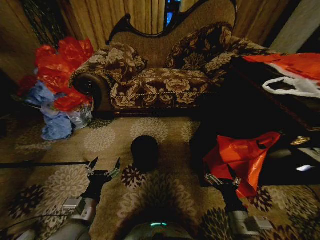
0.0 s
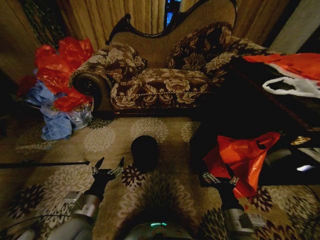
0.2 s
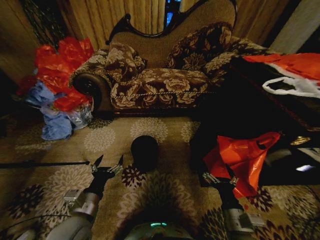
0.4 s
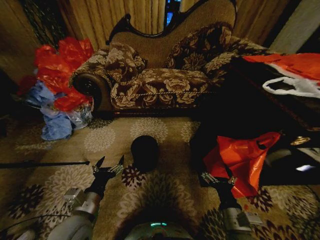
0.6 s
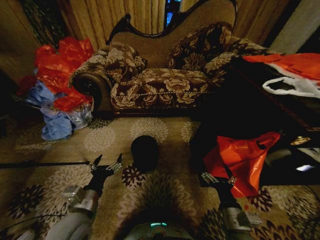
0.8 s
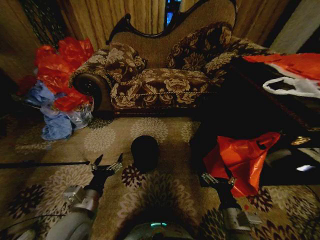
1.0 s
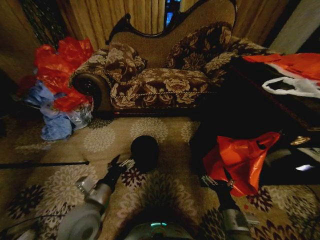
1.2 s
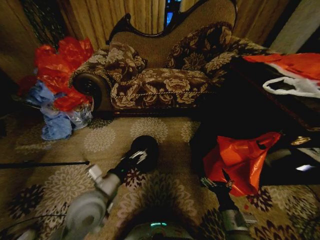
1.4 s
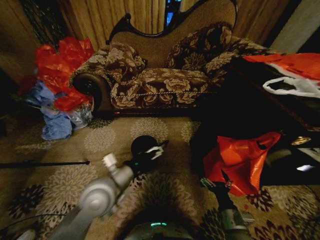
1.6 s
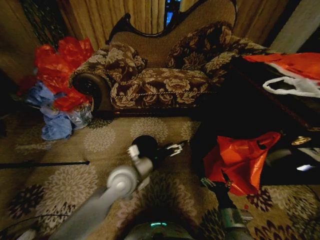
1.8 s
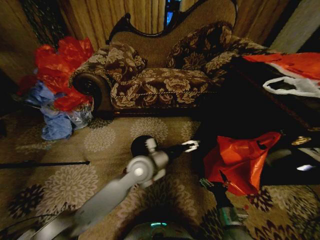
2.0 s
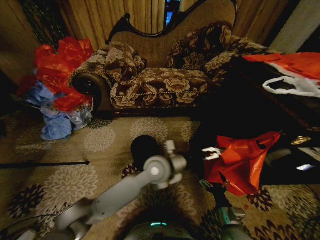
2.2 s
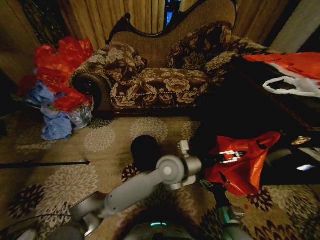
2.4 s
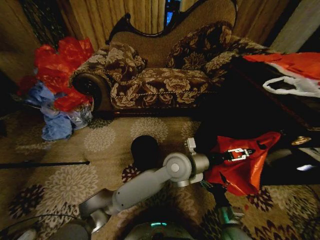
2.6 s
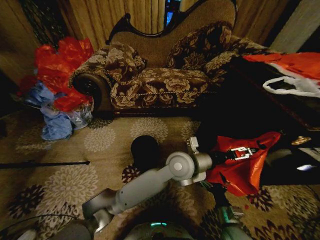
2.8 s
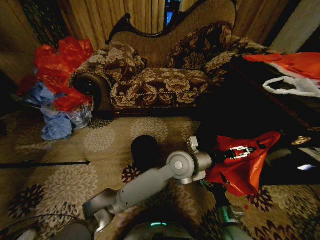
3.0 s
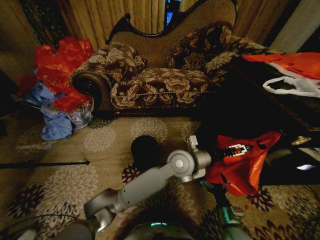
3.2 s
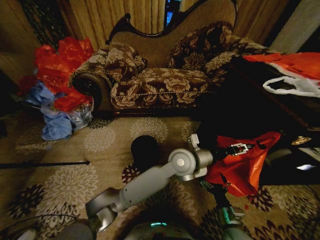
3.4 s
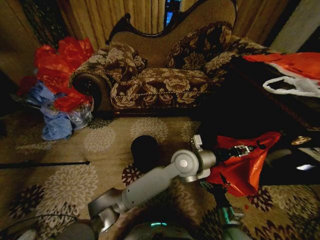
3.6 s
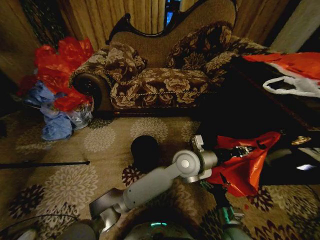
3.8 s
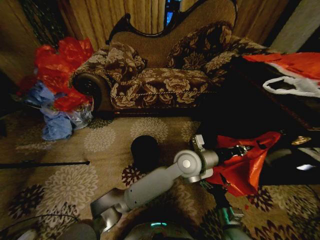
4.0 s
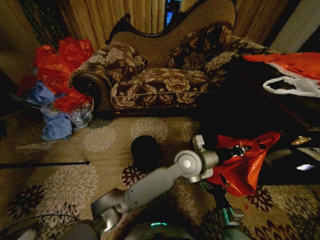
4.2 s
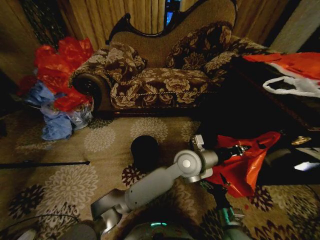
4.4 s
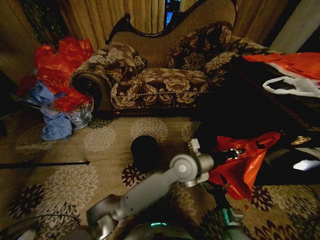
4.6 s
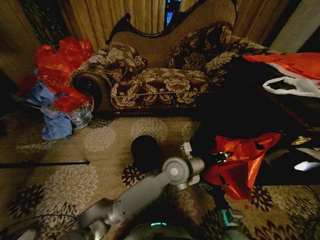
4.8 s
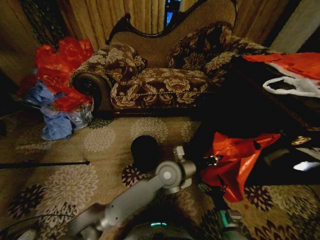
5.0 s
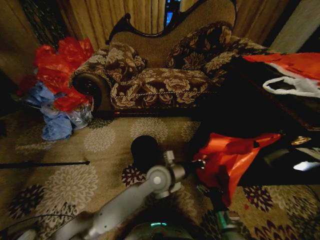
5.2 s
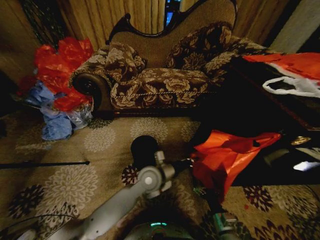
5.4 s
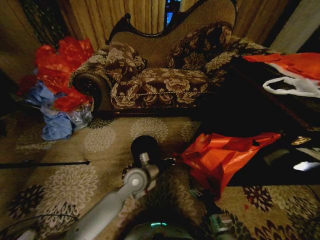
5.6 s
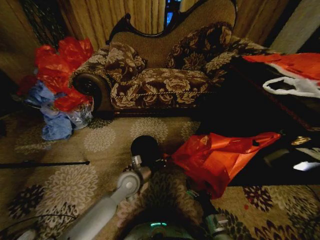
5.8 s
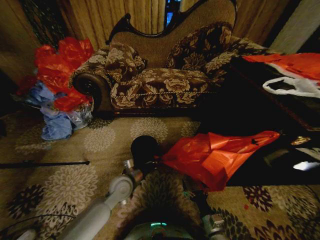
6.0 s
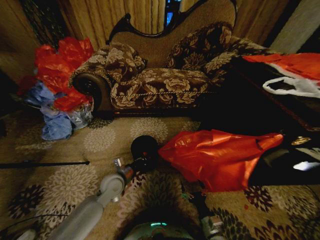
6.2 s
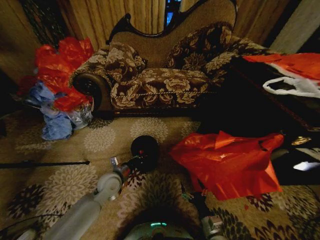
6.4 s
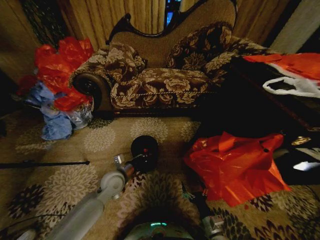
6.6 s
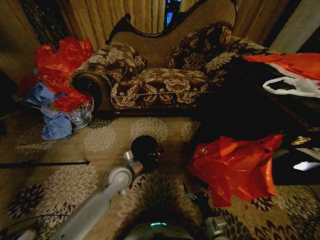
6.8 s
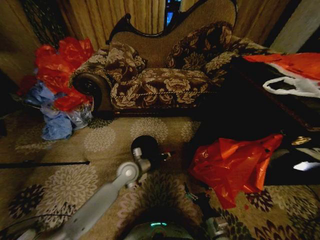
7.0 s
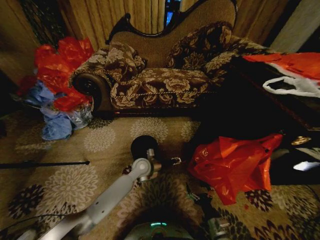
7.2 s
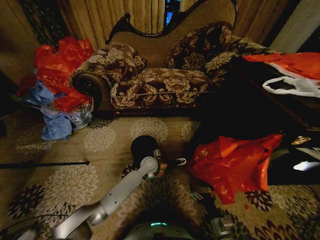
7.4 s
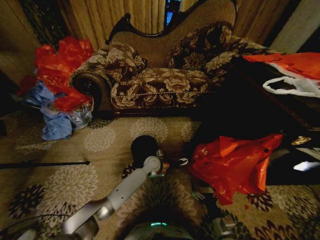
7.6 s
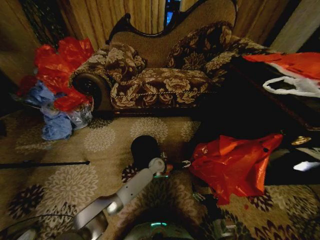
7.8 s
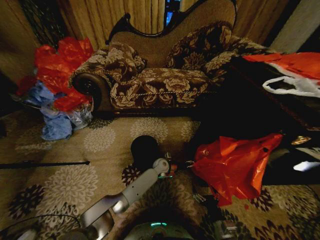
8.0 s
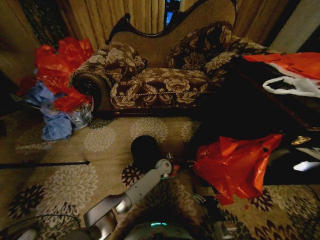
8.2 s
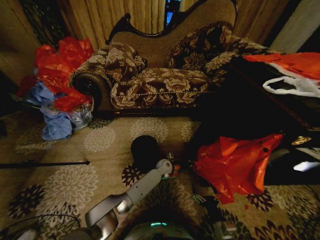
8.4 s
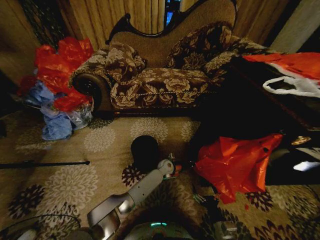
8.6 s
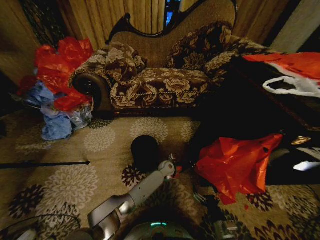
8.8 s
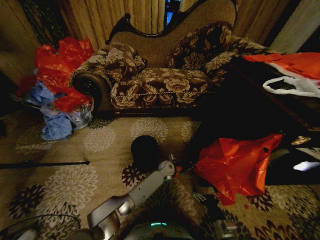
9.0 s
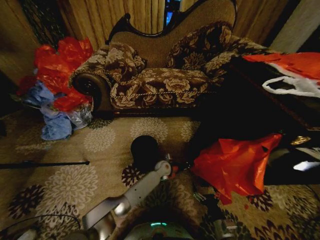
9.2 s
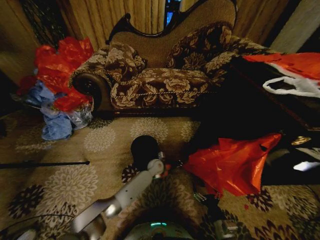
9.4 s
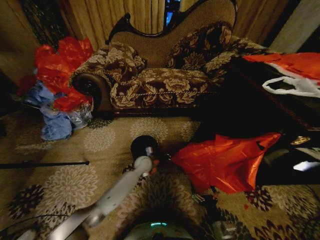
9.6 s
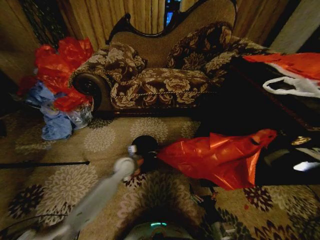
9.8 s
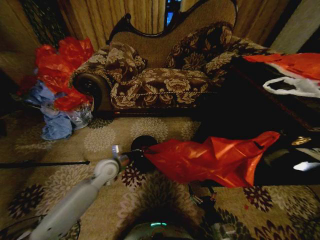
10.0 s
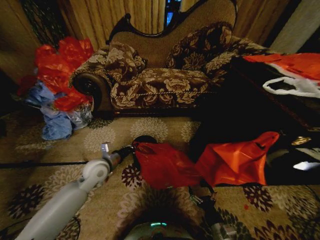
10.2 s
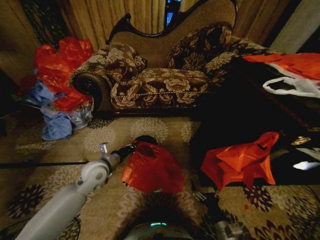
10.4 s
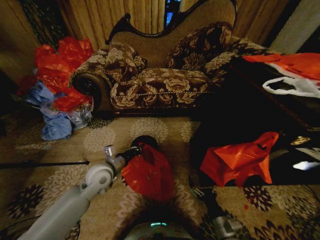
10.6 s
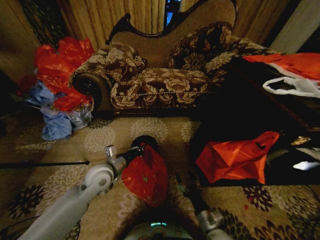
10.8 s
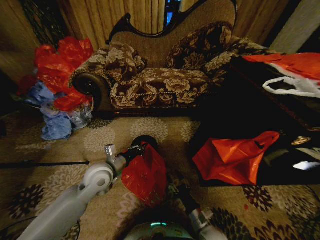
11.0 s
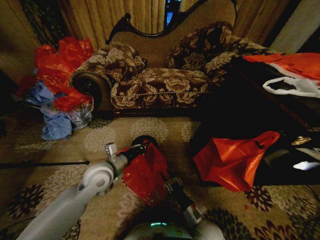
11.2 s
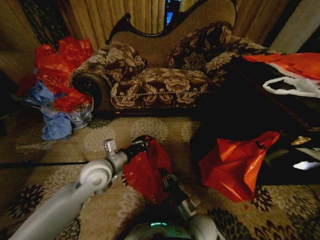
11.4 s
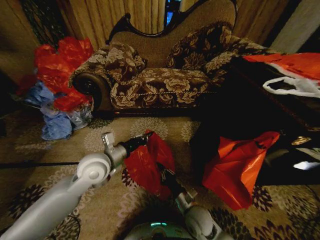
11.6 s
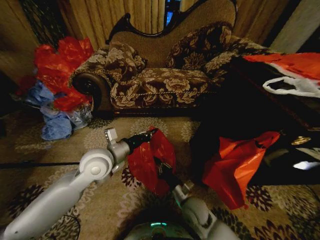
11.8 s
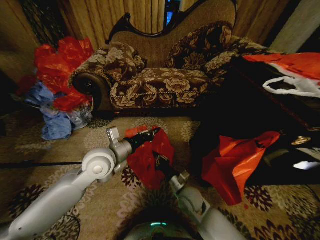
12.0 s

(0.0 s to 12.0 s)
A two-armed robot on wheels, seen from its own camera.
Task of the whole recording: Place a garbage bag over the trash bin.
1.6 s - 3.0 s: The left gripper goes some 25 cm to the right and forward. Meanwhile the right gripper shifts by some 5 cm.
3.0 s - 4.4 s: The left gripper closes.
4.4 s - 6.0 s: The right gripper changes place by about 5 cm; the left gripper heads to the left and downward, covering roughly 30 cm.
6.0 s - 7.6 s: The left gripper shifts some 20 cm forward, to the right and downward, and opens.
7.6 s - 9.0 s: The left gripper heads to the right and downward, covering roughly 10 cm, and closes its fingers.
9.0 s - 10.4 s: The left gripper shifts about 35 cm to the left, upward and backward.
10.4 s - 12.0 s: The left gripper shifts some 10 cm upward and to the right. Meanwhile the right gripper goes roughly 20 cm forward and to the left, and closes its fingers.

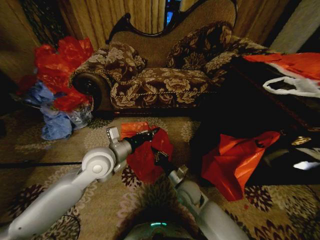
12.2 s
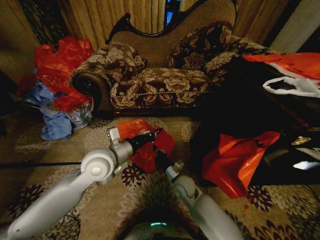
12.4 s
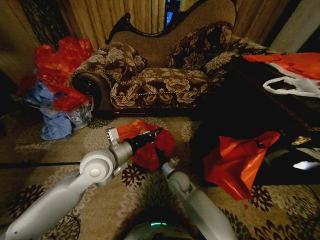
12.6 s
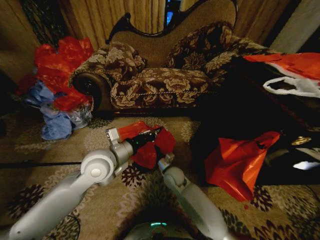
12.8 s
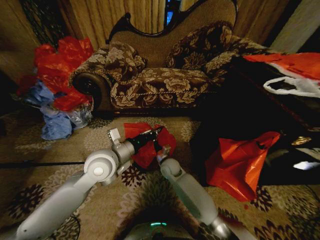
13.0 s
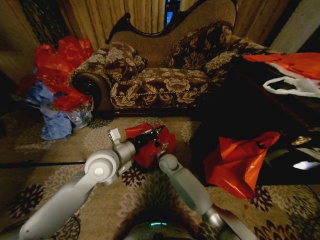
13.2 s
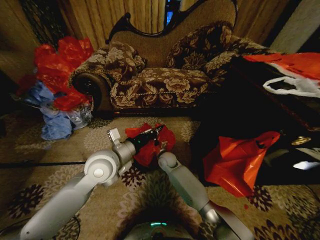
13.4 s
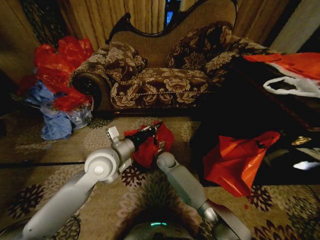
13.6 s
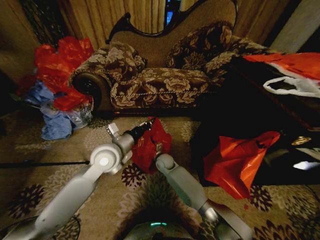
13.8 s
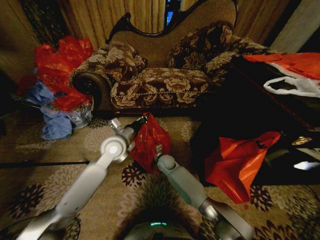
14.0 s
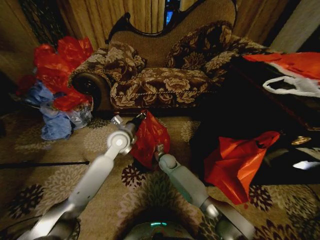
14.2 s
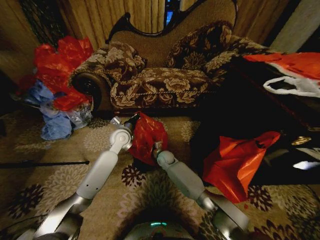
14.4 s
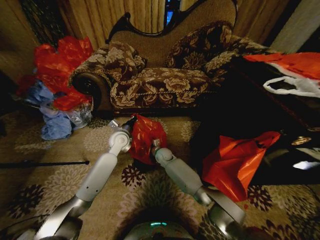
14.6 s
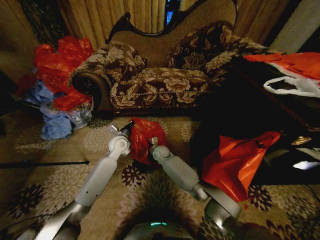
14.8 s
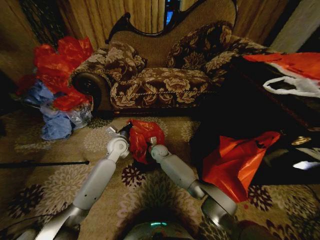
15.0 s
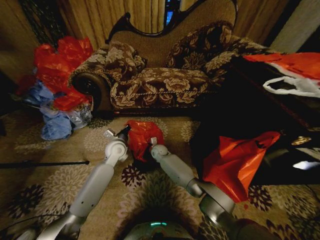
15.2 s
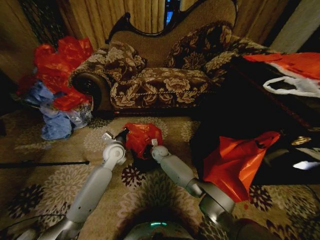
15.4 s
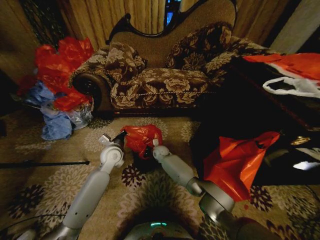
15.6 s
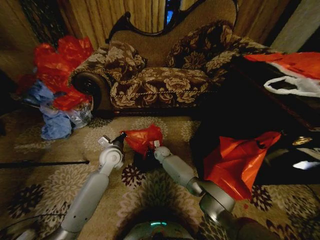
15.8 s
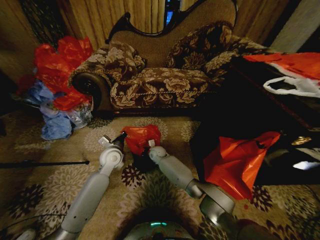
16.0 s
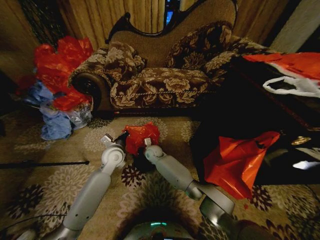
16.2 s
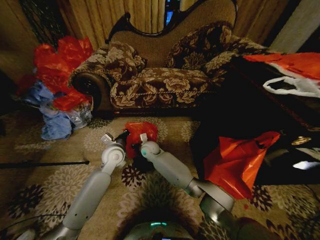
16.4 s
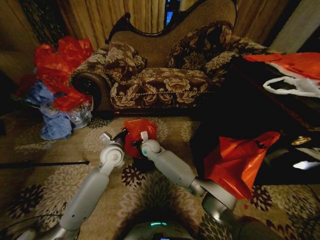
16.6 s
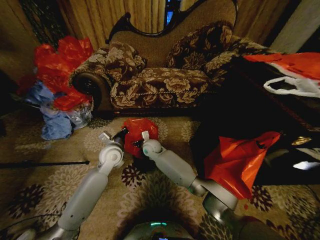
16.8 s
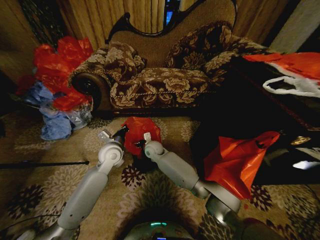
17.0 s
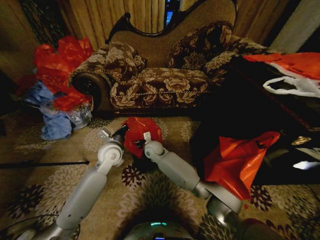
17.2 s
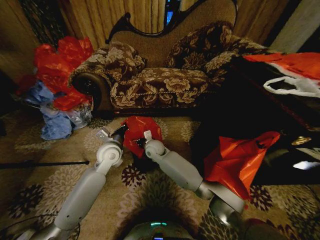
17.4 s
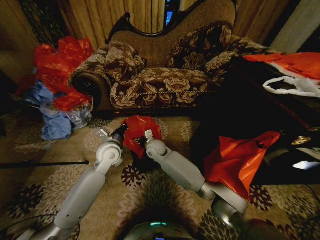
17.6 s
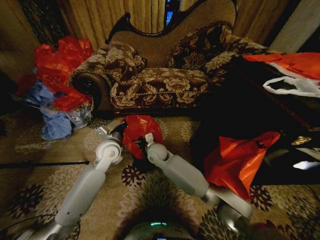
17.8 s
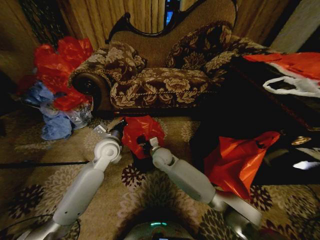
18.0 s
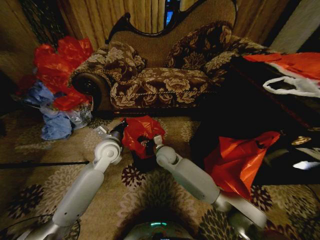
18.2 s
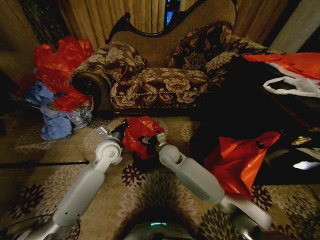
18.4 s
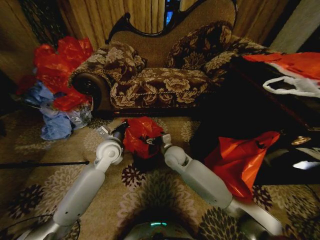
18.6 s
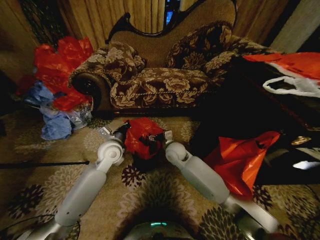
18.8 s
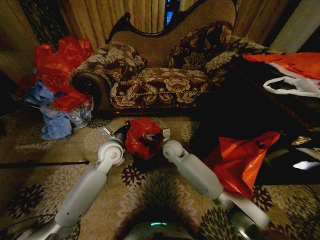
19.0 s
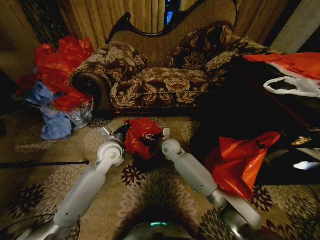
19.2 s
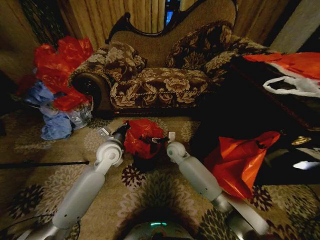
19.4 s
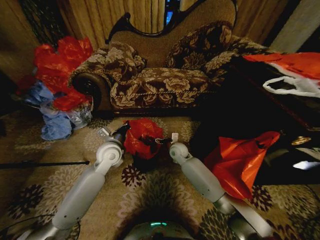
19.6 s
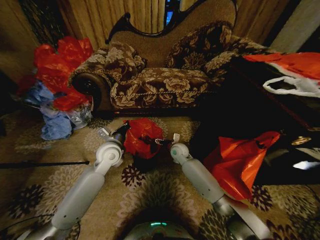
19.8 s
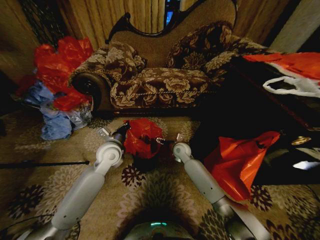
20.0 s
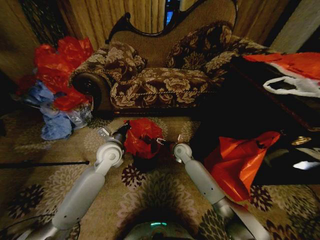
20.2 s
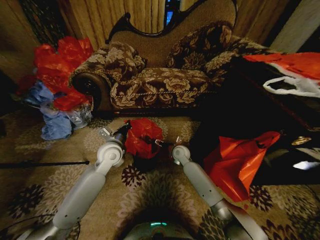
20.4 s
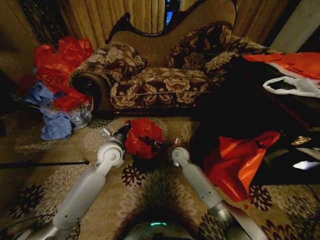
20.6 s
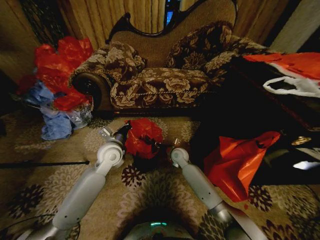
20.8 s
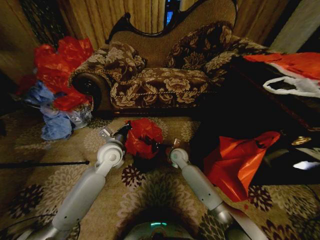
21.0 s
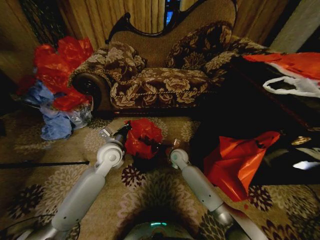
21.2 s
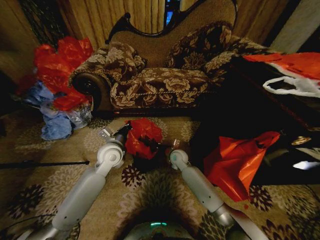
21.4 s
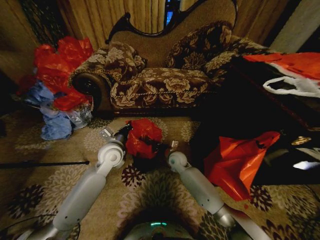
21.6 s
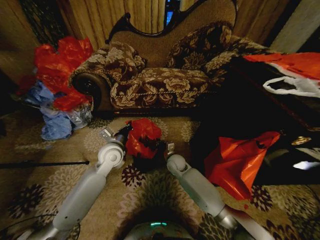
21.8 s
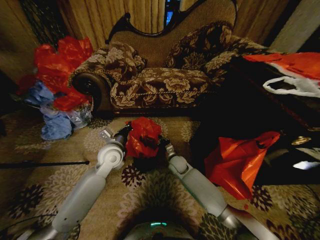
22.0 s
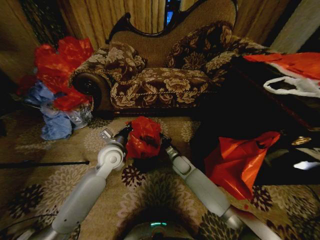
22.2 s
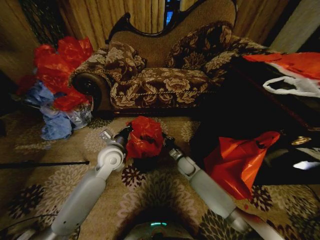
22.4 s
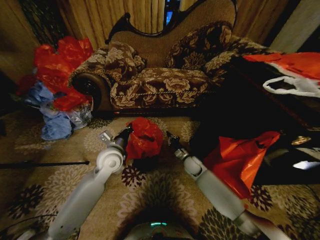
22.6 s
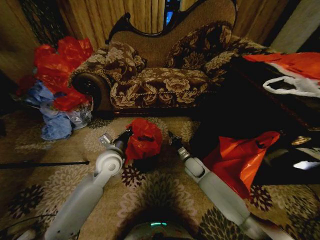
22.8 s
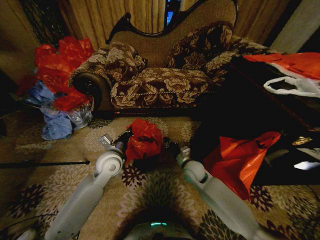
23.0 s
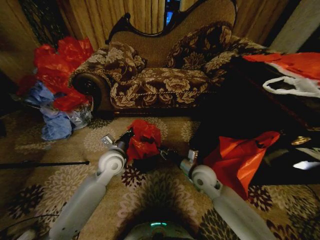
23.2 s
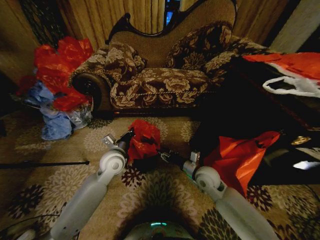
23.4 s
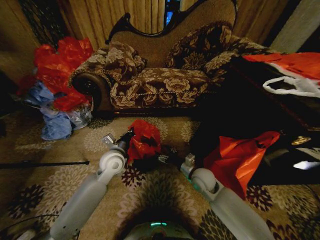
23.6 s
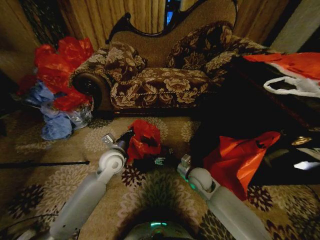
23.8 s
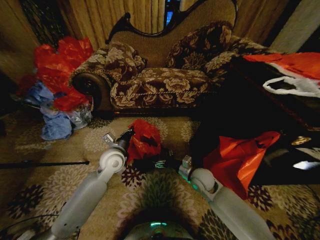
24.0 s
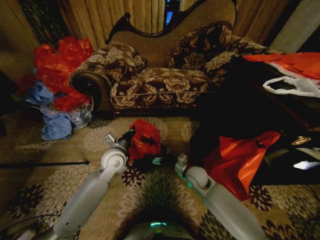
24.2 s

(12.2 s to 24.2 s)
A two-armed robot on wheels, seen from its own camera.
Task of the whole recording: Place a garbage bag over the trash bin.
12.2 s - 13.8 s: The right gripper moves forward and to the left, some 20 cm.
13.8 s - 15.2 s: The left gripper goes roughly 15 cm forward and downward. Meanwhile the right gripper moves forward, about 5 cm.
15.2 s - 16.6 s: The right gripper goes approximately 10 cm upward, and opens.
16.6 s - 18.2 s: The right gripper shifts about 10 cm to the right and backward.
18.2 s - 19.8 s: The right gripper shifts some 10 cm to the right and forward.
19.8 s - 21.2 s: The right gripper closes.
21.2 s - 22.6 s: The right gripper is displaced to the right by some 10 cm.
22.6 s - 24.2 s: The right gripper travels backward and upward by roughly 10 cm, and opens.
